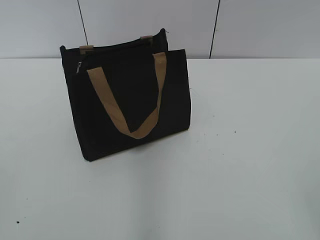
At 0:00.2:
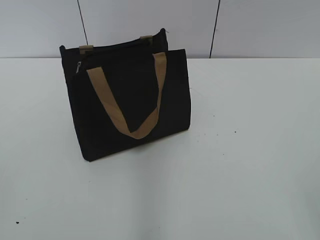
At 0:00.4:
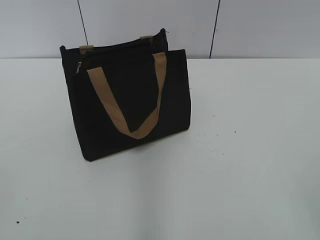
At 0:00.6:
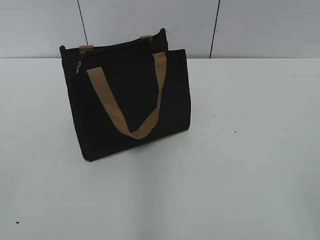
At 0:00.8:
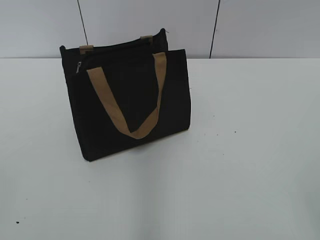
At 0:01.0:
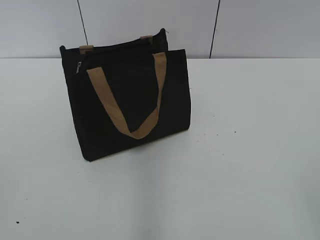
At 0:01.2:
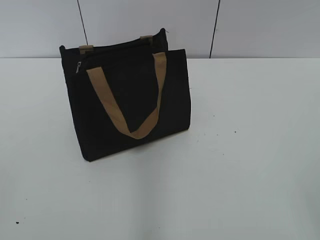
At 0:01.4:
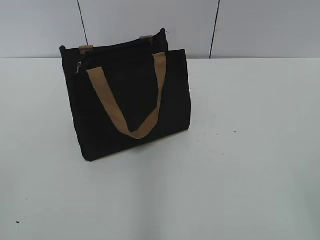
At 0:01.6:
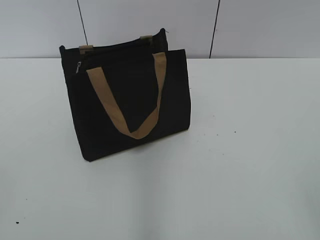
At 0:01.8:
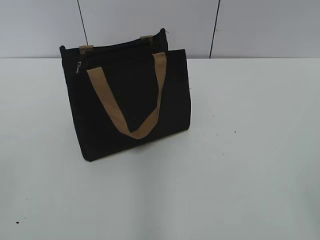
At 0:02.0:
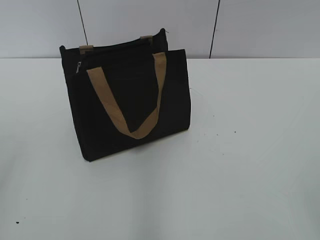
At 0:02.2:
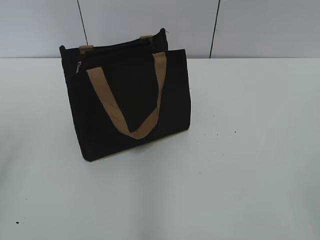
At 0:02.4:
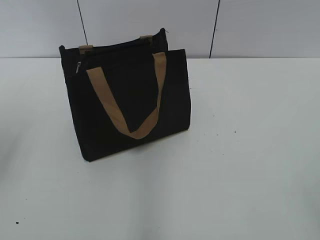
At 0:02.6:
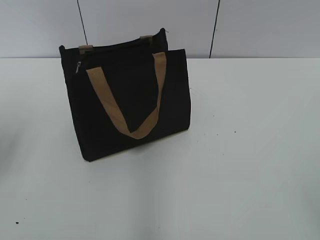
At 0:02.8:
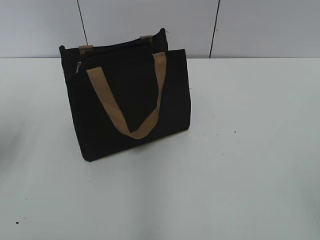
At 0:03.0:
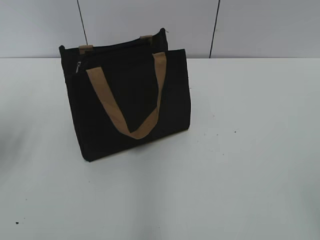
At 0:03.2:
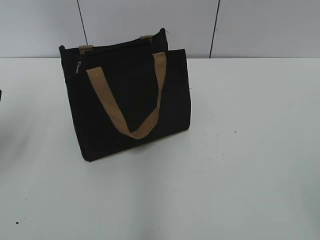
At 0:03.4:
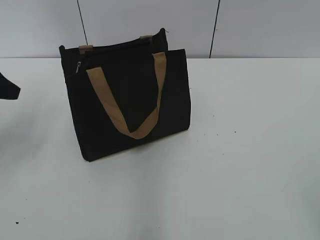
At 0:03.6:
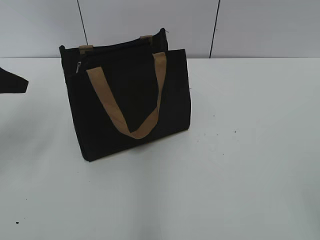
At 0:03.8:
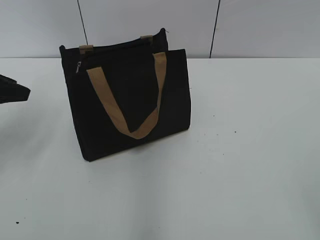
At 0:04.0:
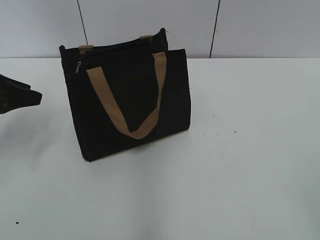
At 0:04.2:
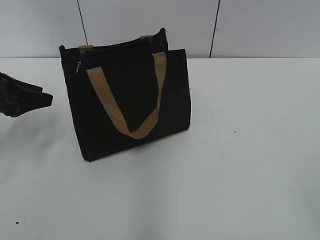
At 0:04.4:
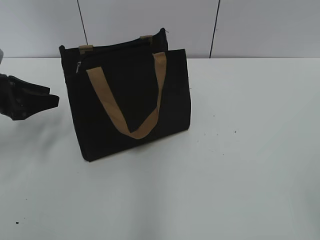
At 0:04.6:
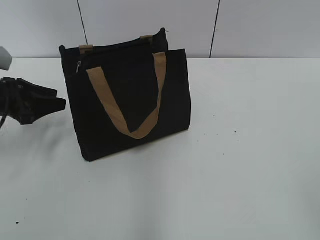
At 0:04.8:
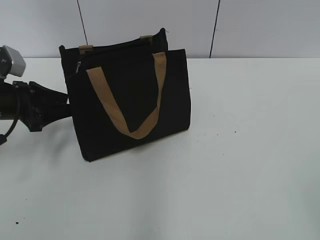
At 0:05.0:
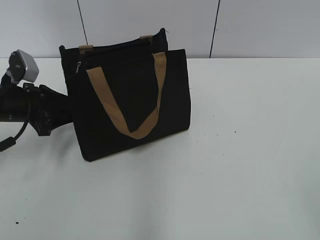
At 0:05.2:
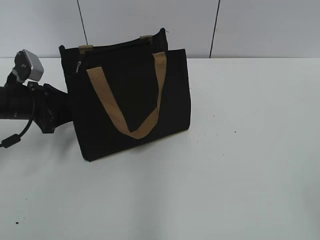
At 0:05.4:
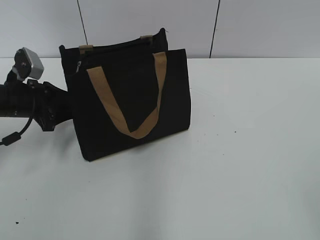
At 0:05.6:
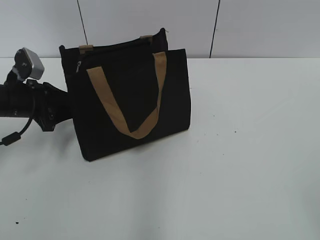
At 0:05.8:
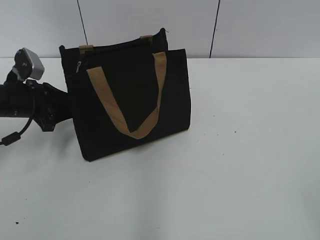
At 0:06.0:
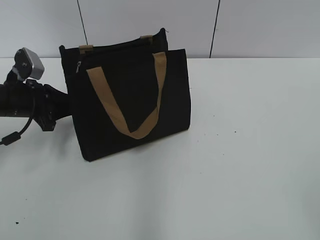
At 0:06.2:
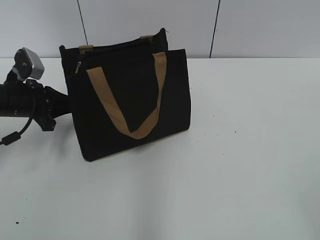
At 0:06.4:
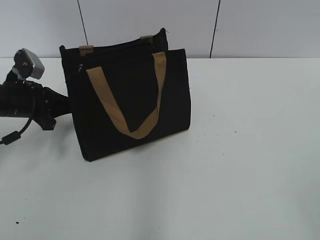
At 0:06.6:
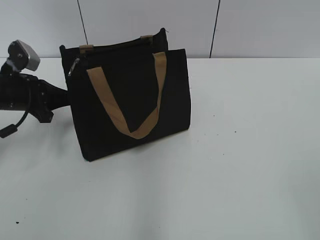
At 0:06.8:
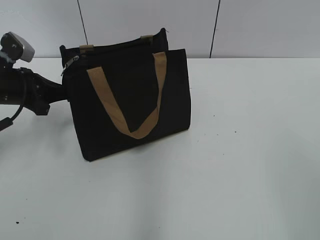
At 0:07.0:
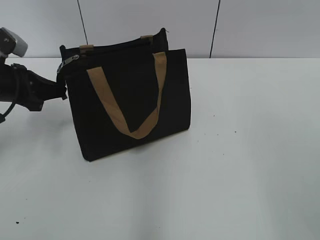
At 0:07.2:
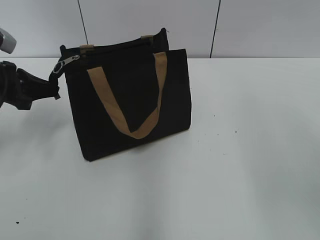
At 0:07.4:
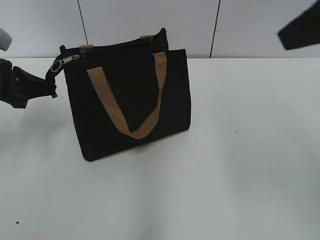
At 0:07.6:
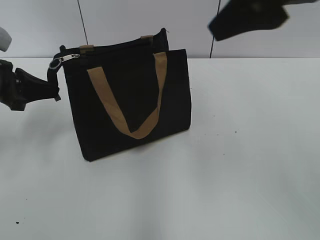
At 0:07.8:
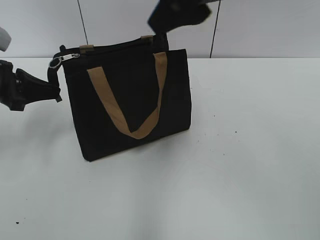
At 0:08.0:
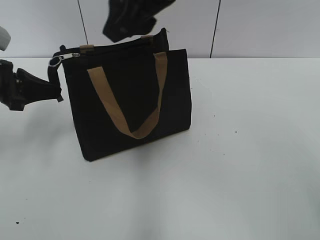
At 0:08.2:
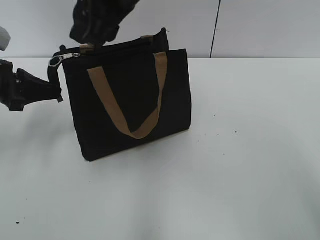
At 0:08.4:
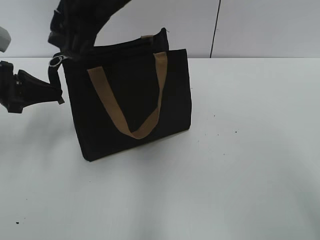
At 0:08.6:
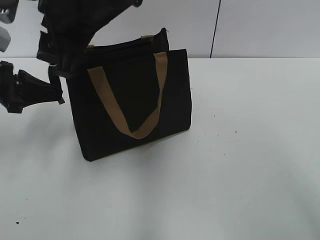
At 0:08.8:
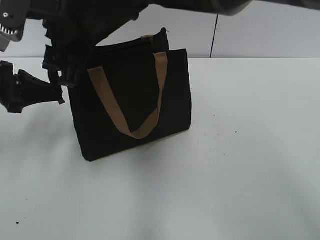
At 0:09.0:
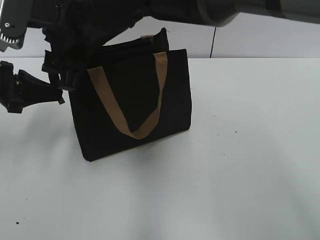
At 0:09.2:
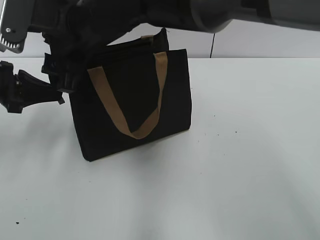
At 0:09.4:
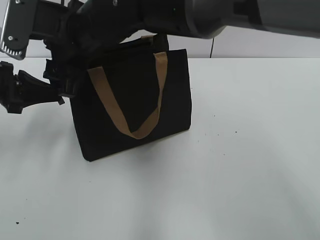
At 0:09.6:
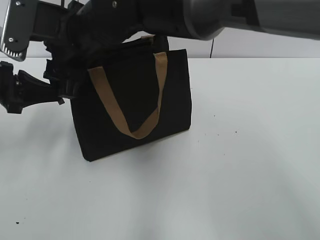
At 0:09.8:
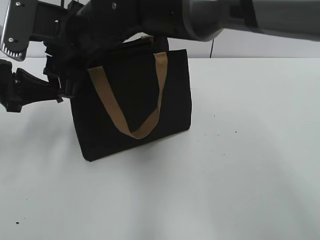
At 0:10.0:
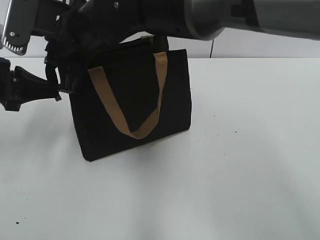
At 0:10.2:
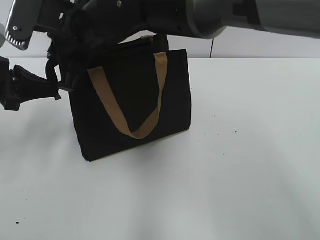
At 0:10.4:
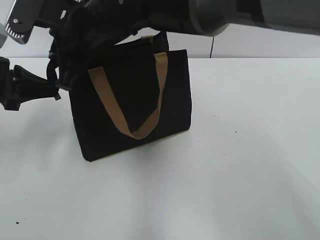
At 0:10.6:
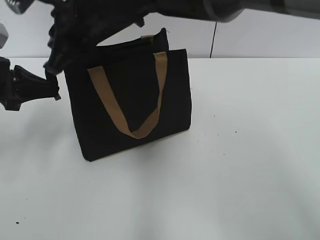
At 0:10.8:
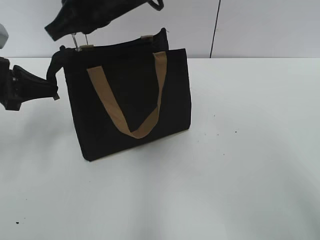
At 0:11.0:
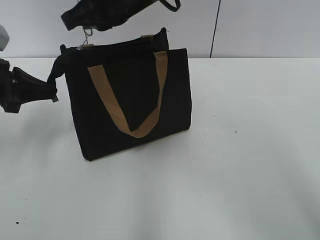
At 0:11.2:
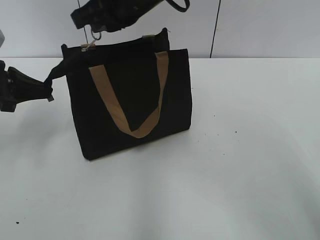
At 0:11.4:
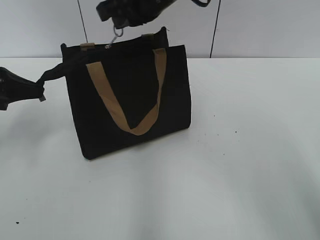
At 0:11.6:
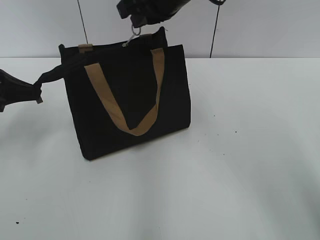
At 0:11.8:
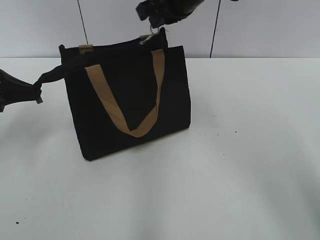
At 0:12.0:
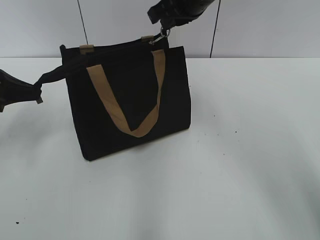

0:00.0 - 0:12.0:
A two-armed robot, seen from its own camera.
0:01.6 - 0:03.0: The left gripper heads forward, covering roughly 25 cm.
0:03.0 - 0:04.4: The left gripper shifts approximately 10 cm downward and forward.
0:04.4 - 0:06.0: The left gripper changes place by some 5 cm.
0:06.0 - 0:07.6: The left gripper heads upward, covering approximately 5 cm; the right gripper shifts some 30 cm forward, to the left and upward.
0:07.6 - 0:09.0: The right gripper travels to the left and downward by approximately 25 cm.
0:09.0 - 0:10.4: The right gripper closes its fingers.
0:10.4 - 0:12.0: The right gripper goes about 15 cm to the right and forward.

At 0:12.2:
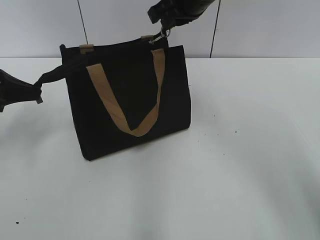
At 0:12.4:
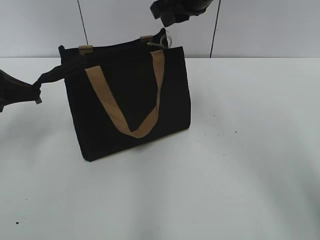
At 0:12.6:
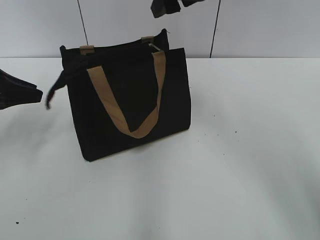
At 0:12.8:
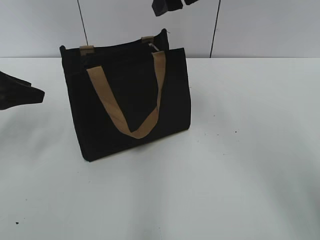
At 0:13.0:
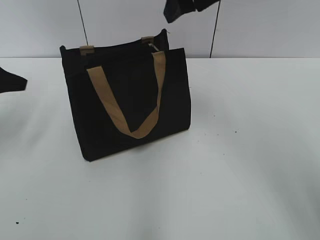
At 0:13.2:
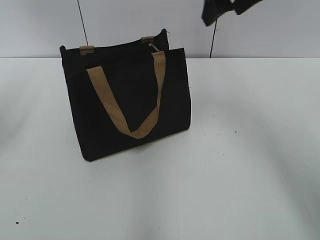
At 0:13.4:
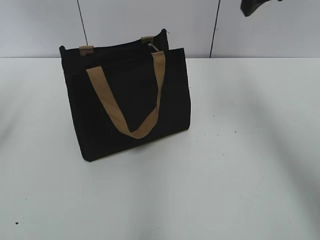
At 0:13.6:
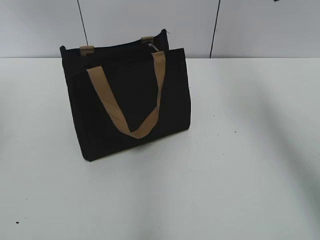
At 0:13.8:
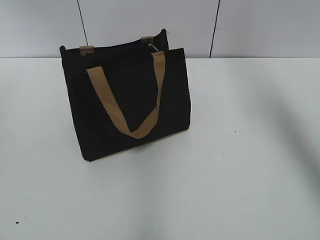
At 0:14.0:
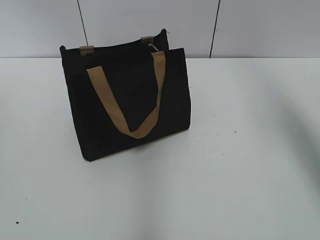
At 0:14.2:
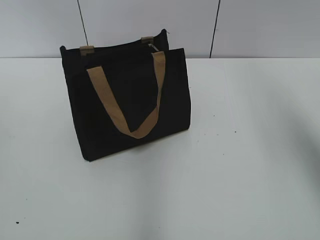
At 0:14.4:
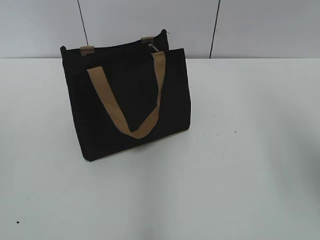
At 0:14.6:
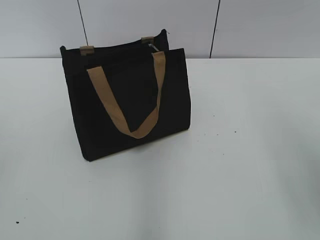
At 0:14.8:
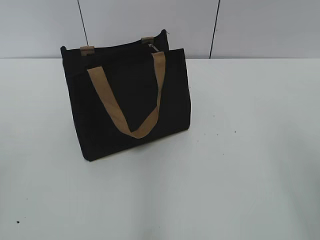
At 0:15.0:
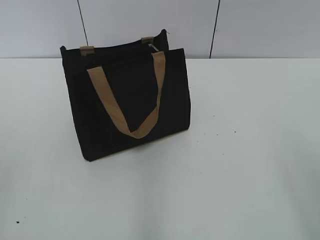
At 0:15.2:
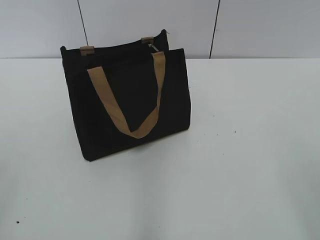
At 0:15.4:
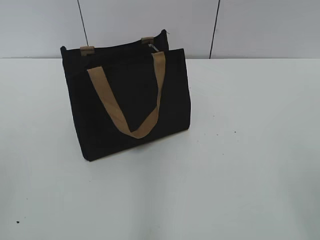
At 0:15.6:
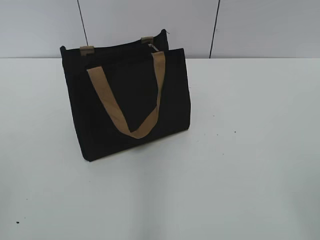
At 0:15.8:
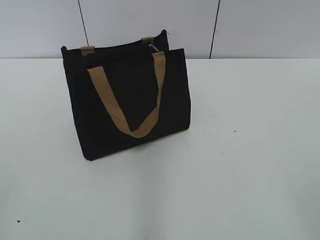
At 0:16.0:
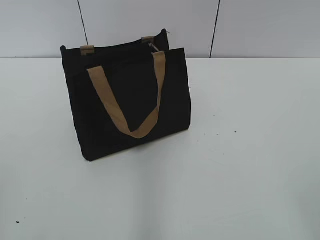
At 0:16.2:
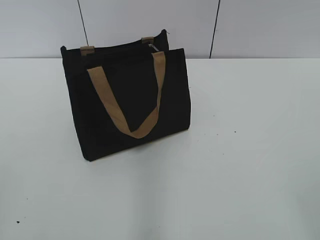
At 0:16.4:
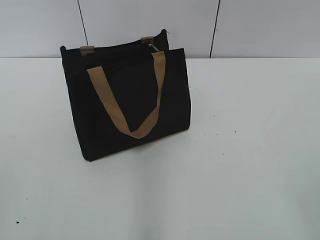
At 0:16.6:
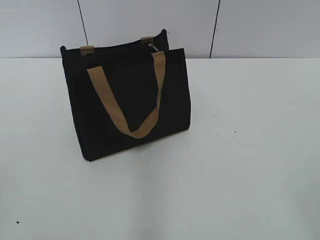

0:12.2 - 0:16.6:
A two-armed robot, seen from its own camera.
0:12.2 - 0:13.6: The right gripper travels to the right and upward by approximately 15 cm, and opens. The left gripper travels upward by approximately 5 cm, and opens.
0:13.6 - 0:15.2: The right gripper shifts roughly 30 cm backward.
